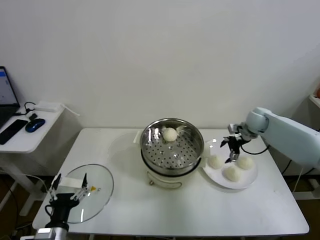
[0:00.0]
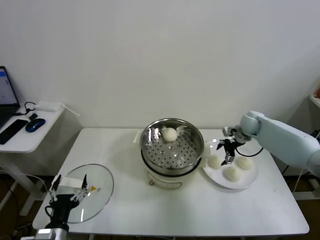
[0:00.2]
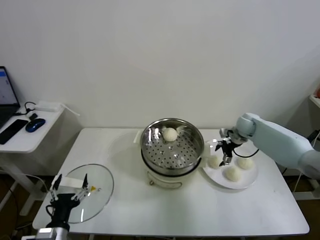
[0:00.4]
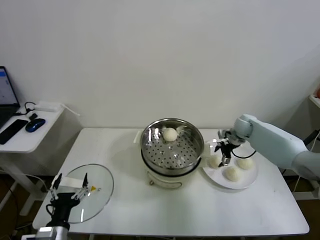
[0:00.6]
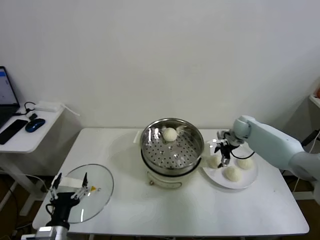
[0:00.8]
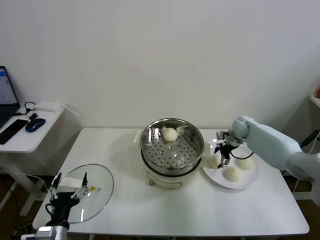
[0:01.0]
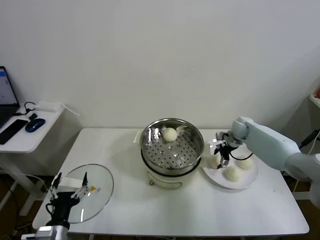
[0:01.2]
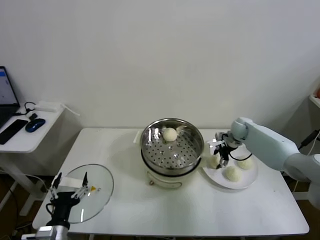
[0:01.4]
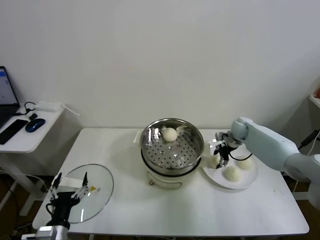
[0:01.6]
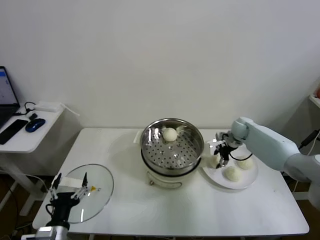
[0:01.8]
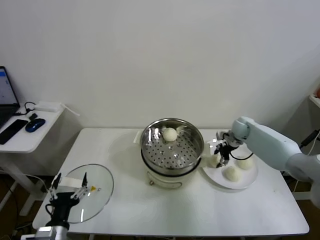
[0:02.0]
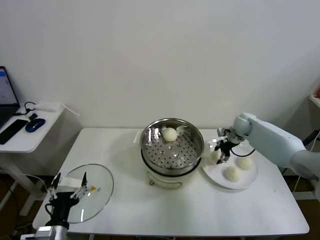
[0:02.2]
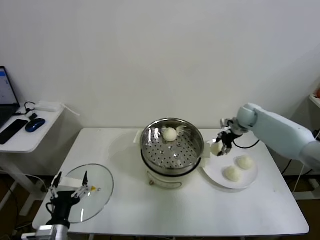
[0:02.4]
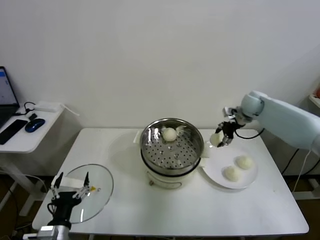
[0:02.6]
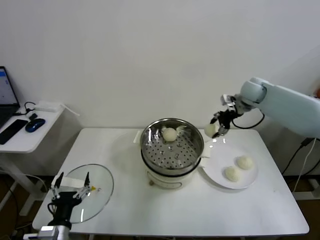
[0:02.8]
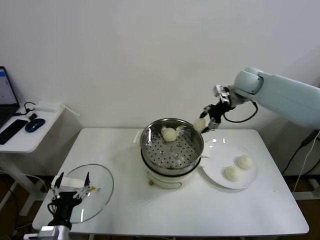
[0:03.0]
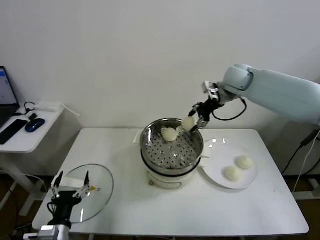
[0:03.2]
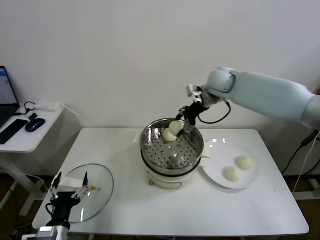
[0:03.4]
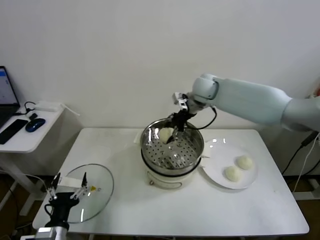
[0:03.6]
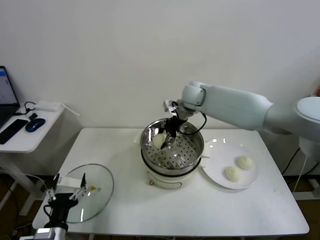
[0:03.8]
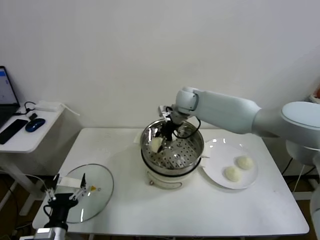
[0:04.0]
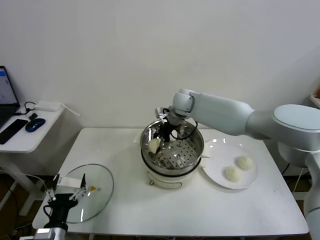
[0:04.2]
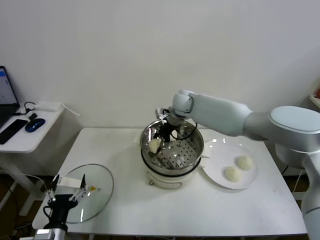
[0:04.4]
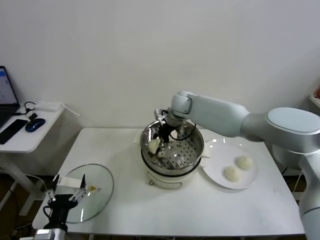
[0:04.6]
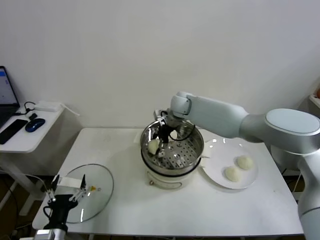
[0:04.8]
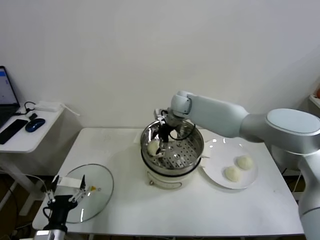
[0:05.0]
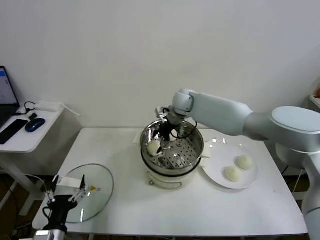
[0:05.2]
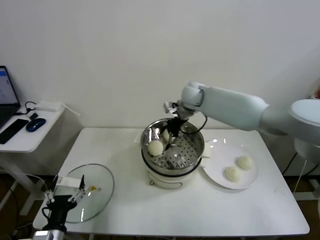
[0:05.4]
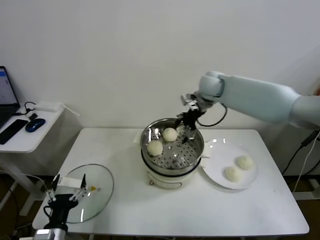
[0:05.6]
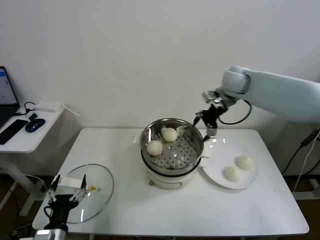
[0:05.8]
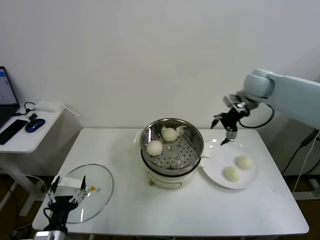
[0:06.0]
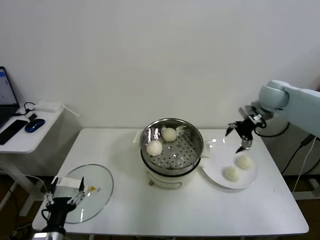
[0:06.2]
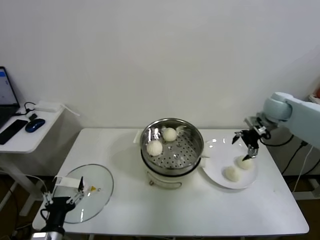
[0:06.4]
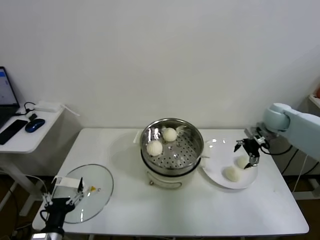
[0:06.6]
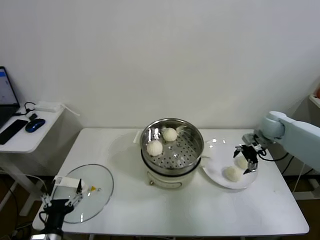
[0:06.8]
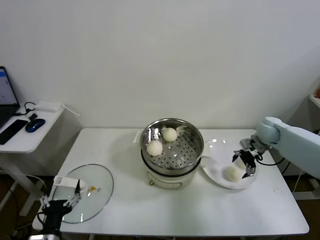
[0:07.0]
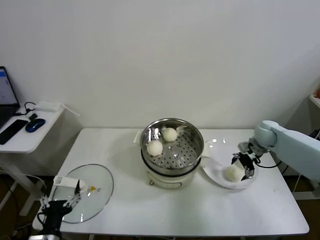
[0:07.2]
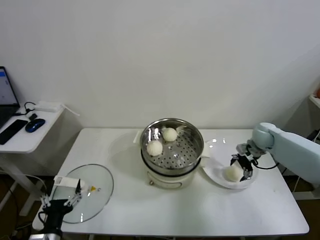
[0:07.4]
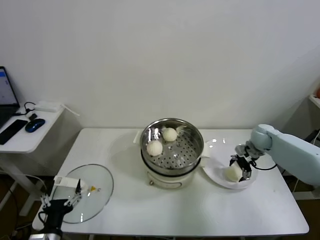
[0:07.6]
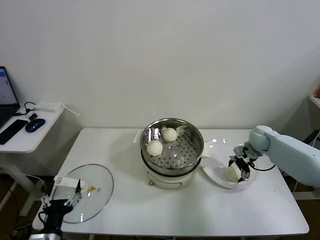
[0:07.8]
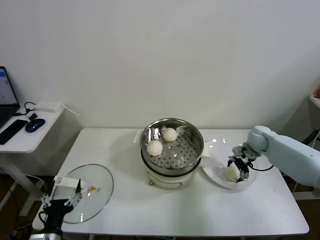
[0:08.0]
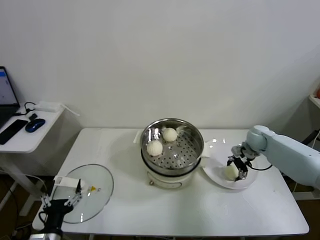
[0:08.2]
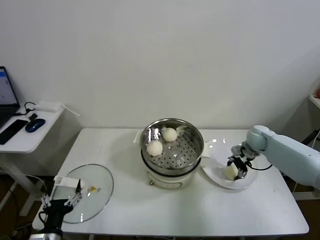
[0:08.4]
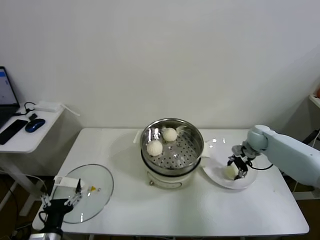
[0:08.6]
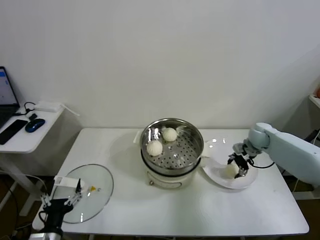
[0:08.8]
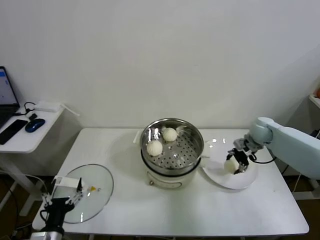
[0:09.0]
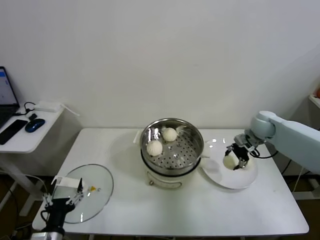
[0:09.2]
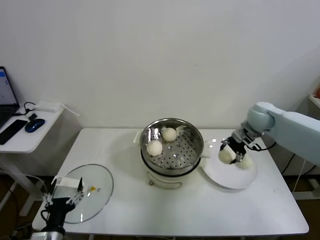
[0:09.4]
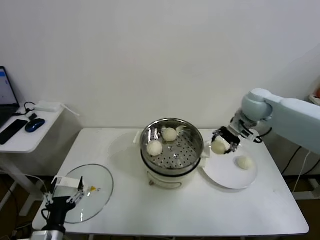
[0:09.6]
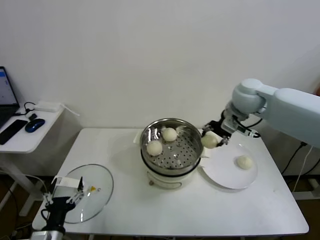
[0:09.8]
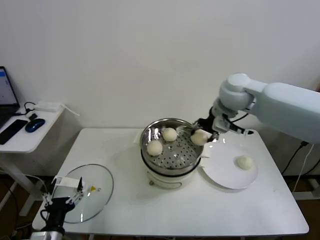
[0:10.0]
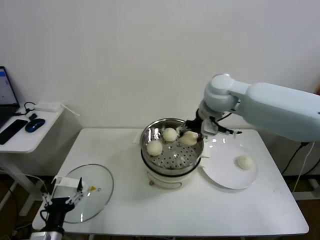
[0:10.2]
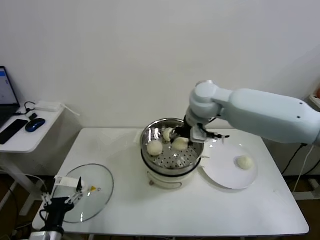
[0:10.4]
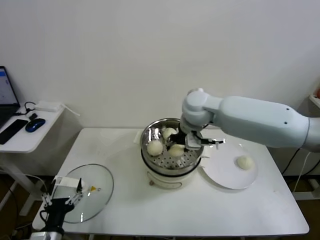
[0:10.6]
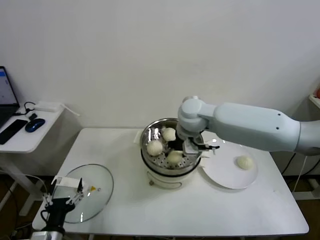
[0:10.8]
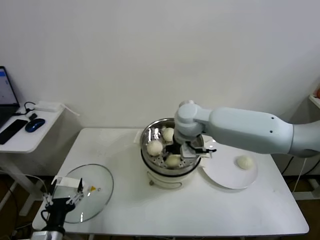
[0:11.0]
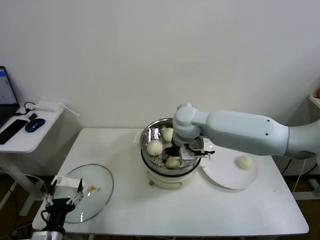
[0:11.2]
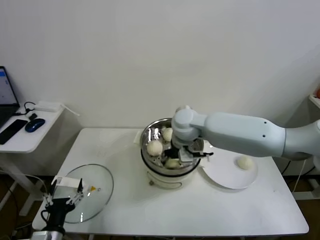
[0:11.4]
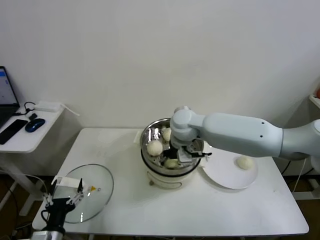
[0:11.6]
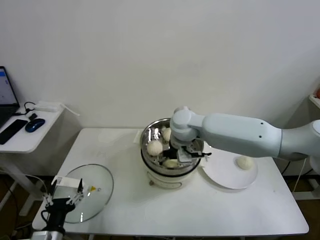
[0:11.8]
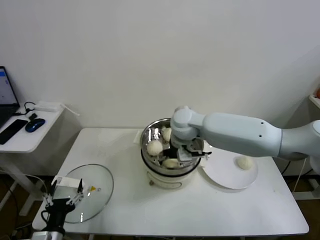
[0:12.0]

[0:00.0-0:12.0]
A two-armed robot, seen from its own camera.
Task of the whole recording: take steamed baozi put them in steamer.
Step, 0:00.0 to 0:01.6: Grasp the baozi in the plate with right gripper.
Step, 0:01.8 to 0:05.2: Place the baozi on the steamer with right gripper.
Step, 0:05.4 to 0:08.4: Grasp the baozi in the plate with right gripper.
0:00.0 to 0:01.6: The right gripper heads downward, covering roughly 5 cm, and closes its fingers.
0:01.6 to 0:03.0: The right gripper goes roughly 25 cm upward.
0:03.0 to 0:04.4: The right gripper moves to the left and downward, approximately 20 cm.
0:04.4 to 0:06.0: The right gripper shifts approximately 25 cm to the right, and opens up.
0:06.0 to 0:07.6: The right gripper is displaced downward by about 20 cm.
0:07.6 to 0:09.0: The right gripper closes up.
0:09.0 to 0:10.4: The right gripper shifts roughly 30 cm to the left and upward.
0:10.4 to 0:12.0: The right gripper moves downward, approximately 10 cm, and opens up.

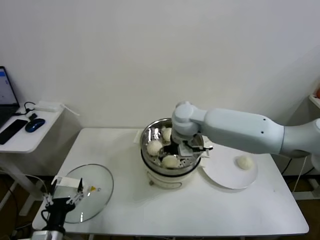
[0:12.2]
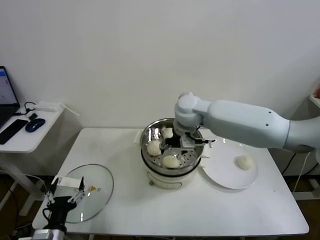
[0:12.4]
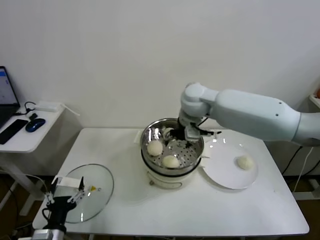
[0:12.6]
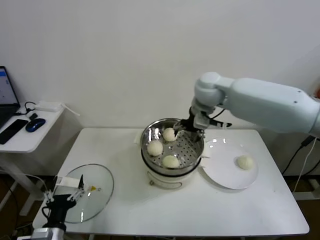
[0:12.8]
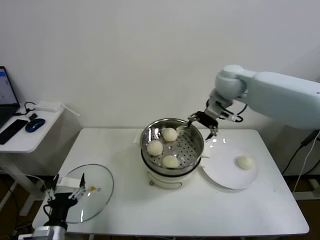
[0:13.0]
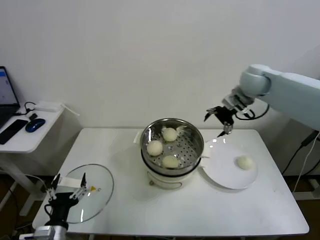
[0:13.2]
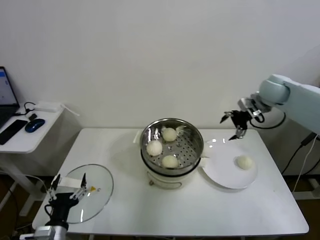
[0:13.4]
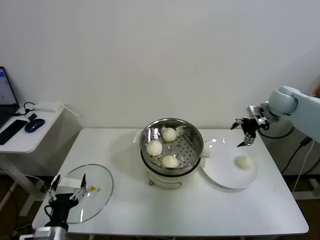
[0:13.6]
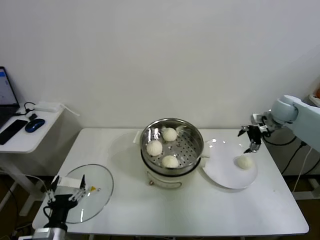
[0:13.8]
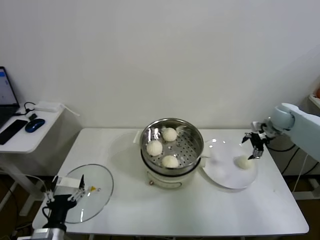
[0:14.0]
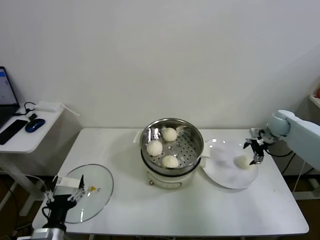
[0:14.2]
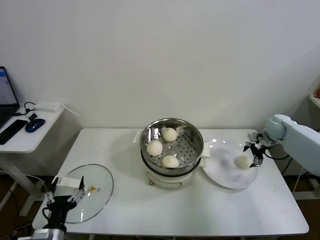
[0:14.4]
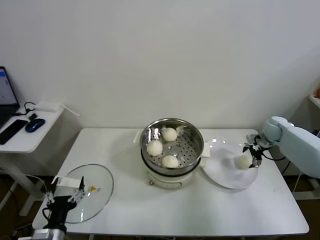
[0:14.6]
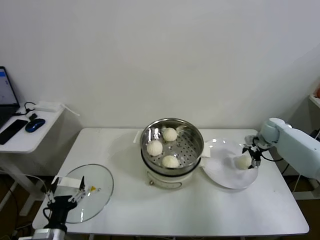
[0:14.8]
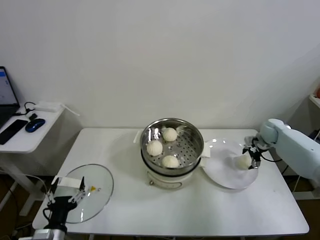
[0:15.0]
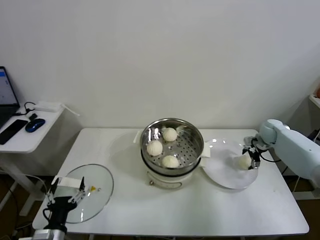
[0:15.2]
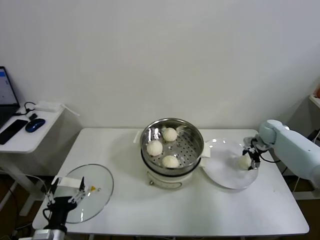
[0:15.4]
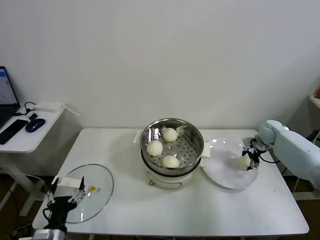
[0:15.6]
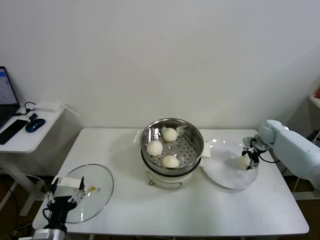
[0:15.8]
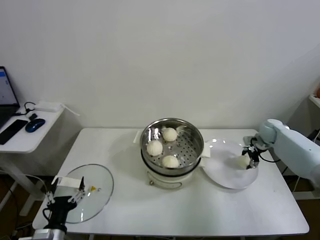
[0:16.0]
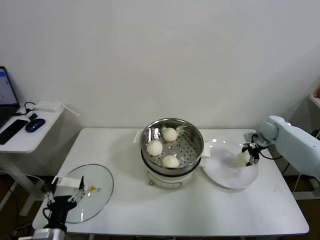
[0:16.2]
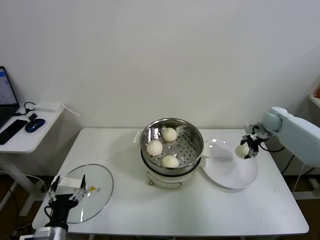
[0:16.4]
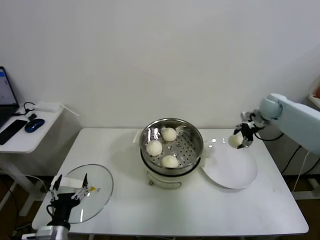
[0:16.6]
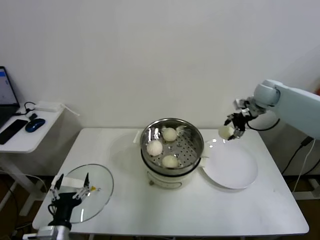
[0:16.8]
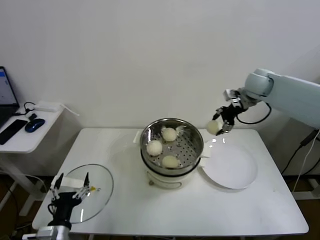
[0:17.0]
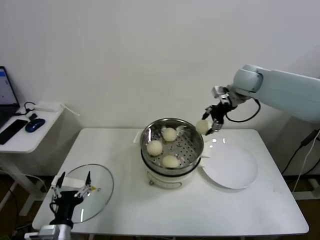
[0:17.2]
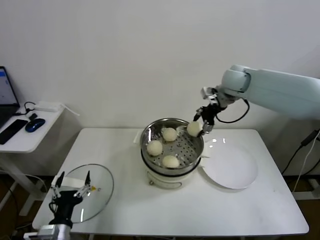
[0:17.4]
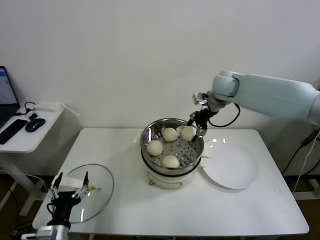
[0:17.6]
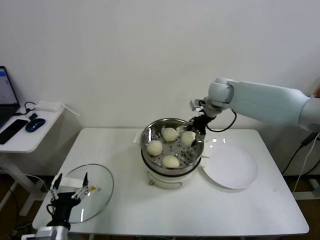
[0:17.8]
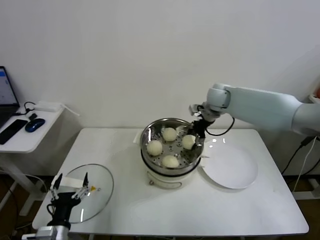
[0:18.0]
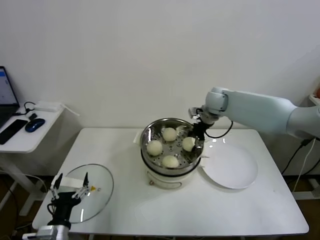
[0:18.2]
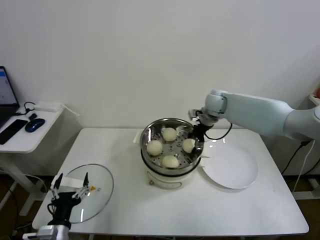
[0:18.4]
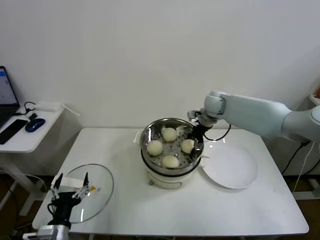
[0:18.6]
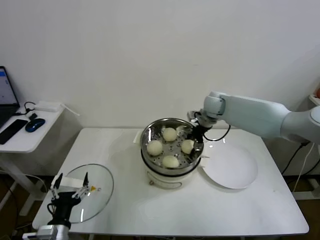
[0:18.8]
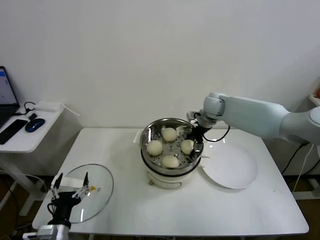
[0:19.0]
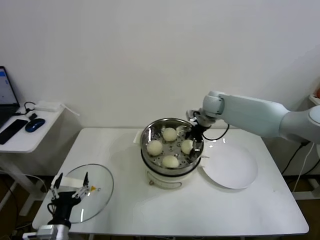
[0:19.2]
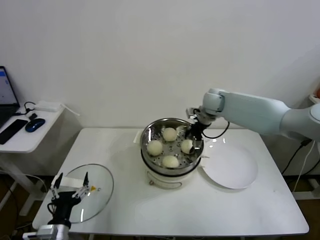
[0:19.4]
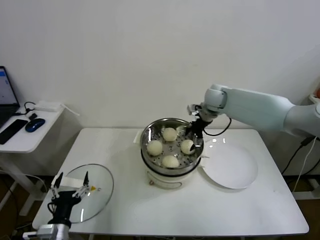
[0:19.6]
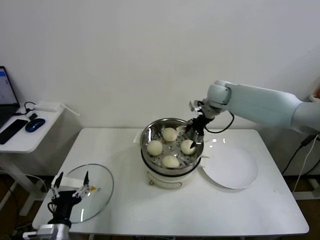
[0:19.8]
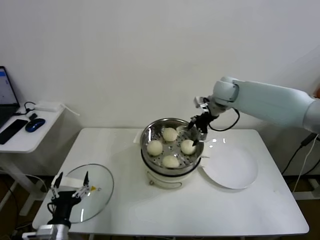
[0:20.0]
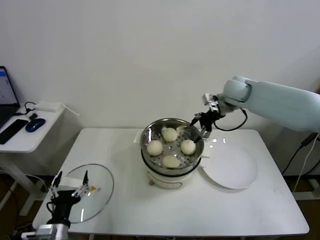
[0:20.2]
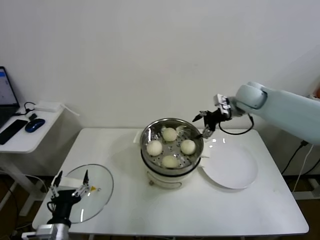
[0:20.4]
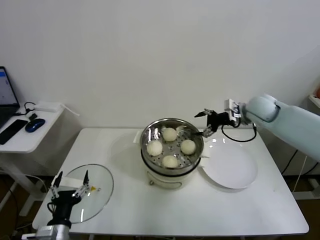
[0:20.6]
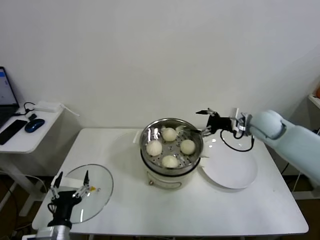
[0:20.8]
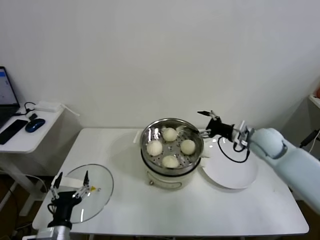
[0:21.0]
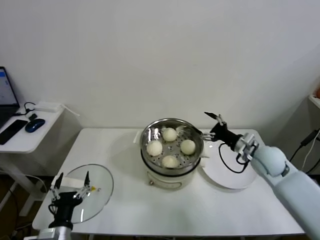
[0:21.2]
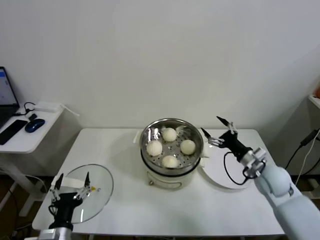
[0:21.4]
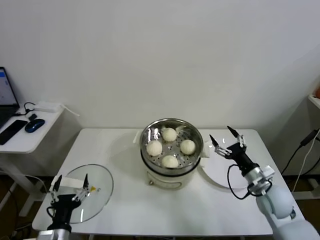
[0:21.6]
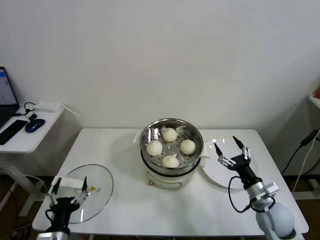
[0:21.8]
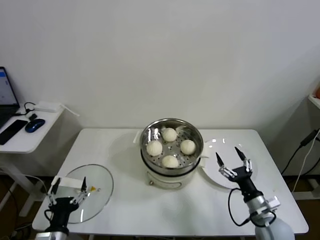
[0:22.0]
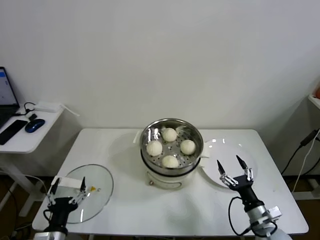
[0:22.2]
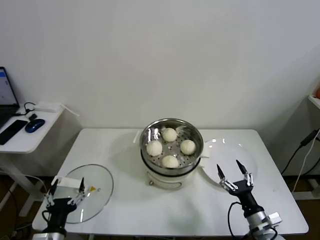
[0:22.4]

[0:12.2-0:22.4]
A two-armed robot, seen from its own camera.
Task of the whole recording: take steamed baozi put them in steamer.
Step, 0:12.2 to 0:15.6: Grasp the baozi in the plate with right gripper.
Step, 0:15.8 to 0:19.2: Place the baozi on the steamer with right gripper.
0:12.2 to 0:13.6: The right gripper heads to the right, covering about 35 cm.
0:13.6 to 0:15.2: The right gripper travels downward by roughly 15 cm.
0:15.2 to 0:16.6: The right gripper goes approximately 10 cm upward, and closes its fingers.
0:16.6 to 0:18.0: The right gripper heads to the left, covering about 20 cm.
0:18.0 to 0:19.4: The right gripper opens its fingers.
0:19.4 to 0:21.0: The right gripper travels backward and to the right by about 20 cm.
0:21.0 to 0:22.4: The right gripper heads backward and downward, covering roughly 35 cm.
